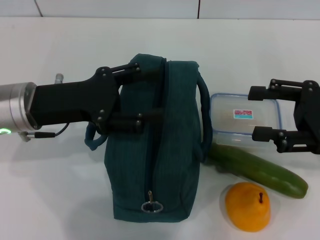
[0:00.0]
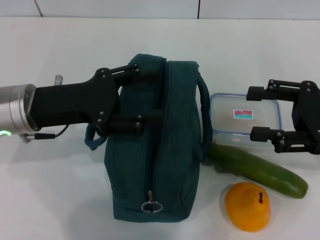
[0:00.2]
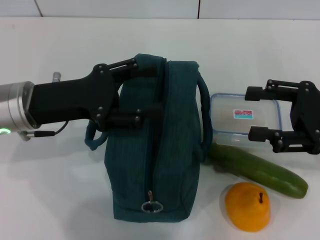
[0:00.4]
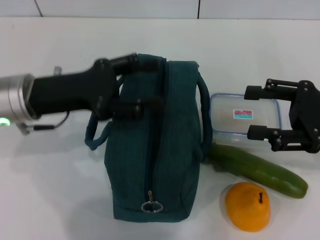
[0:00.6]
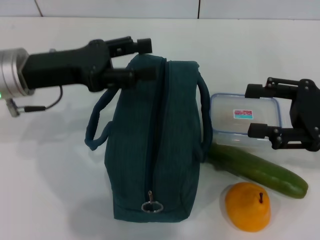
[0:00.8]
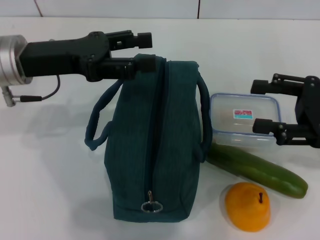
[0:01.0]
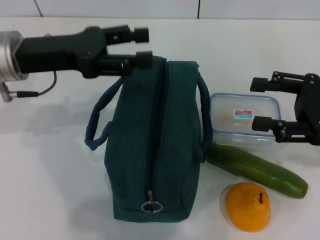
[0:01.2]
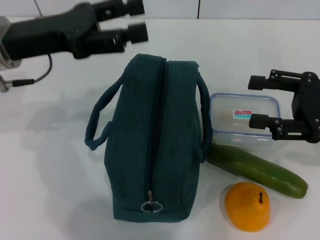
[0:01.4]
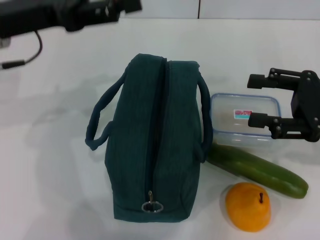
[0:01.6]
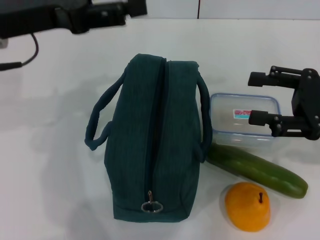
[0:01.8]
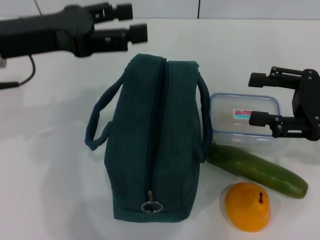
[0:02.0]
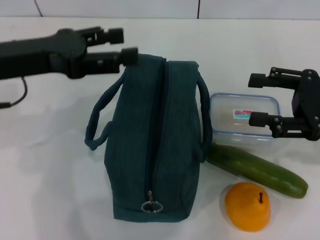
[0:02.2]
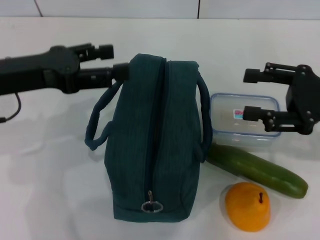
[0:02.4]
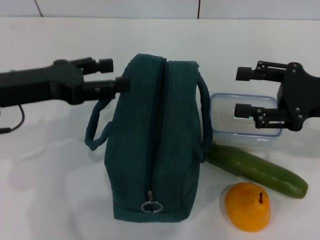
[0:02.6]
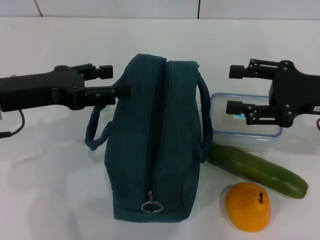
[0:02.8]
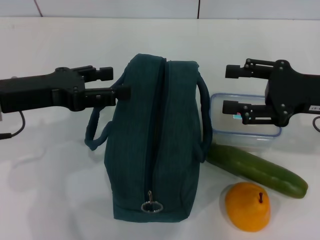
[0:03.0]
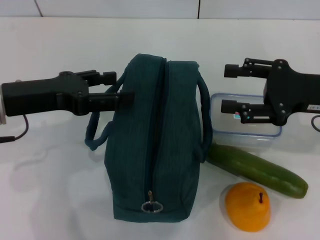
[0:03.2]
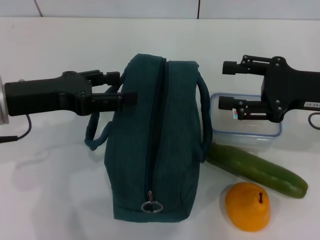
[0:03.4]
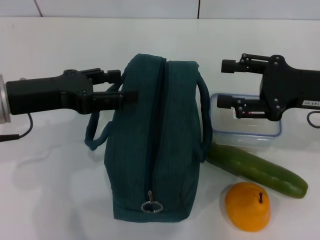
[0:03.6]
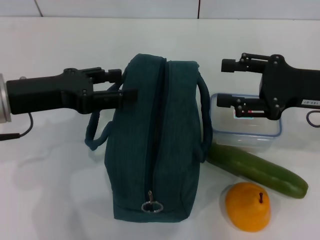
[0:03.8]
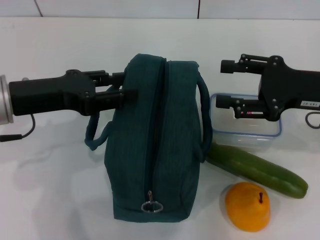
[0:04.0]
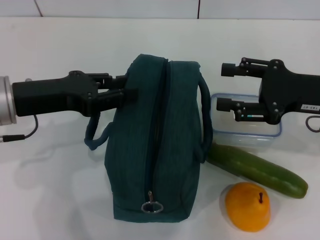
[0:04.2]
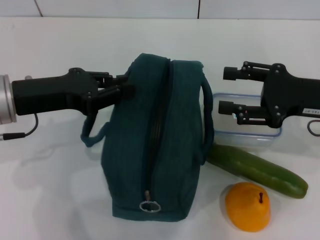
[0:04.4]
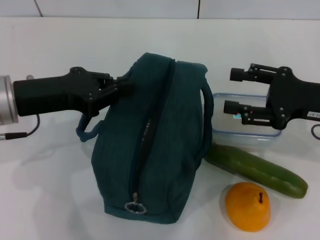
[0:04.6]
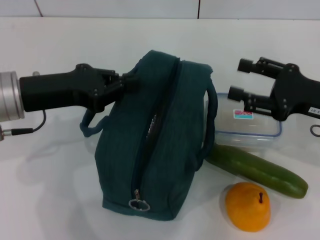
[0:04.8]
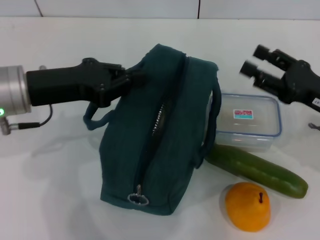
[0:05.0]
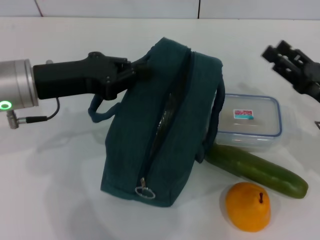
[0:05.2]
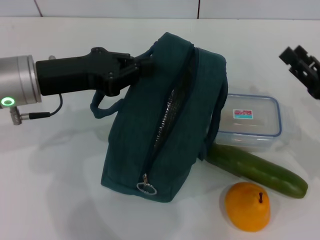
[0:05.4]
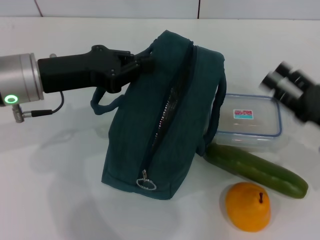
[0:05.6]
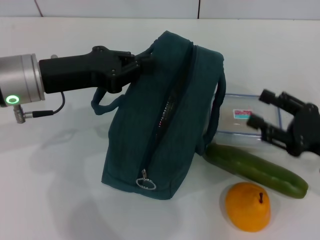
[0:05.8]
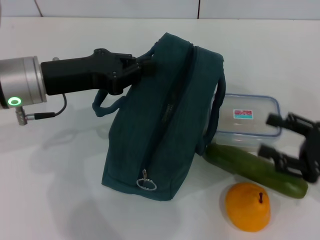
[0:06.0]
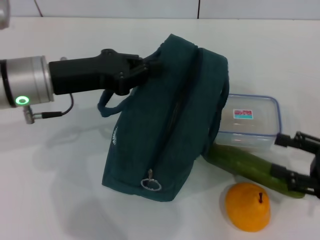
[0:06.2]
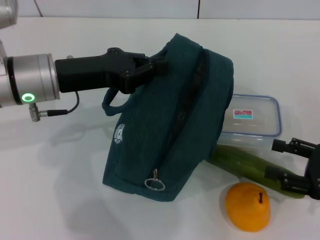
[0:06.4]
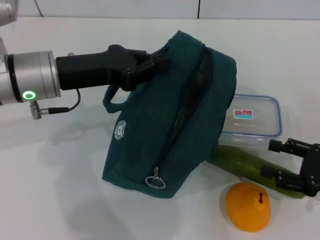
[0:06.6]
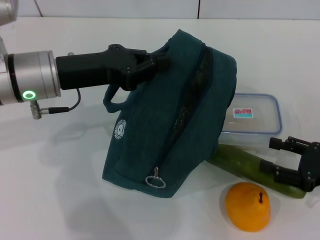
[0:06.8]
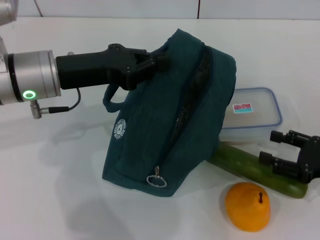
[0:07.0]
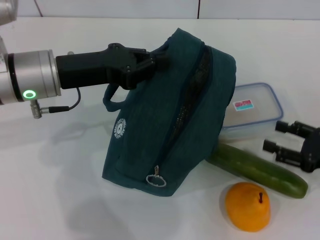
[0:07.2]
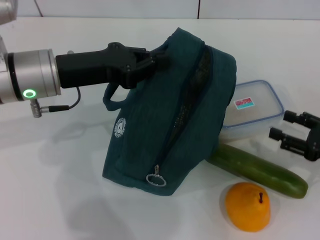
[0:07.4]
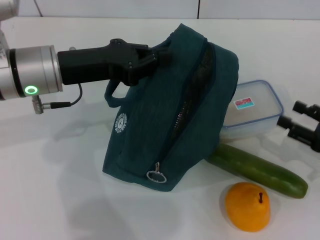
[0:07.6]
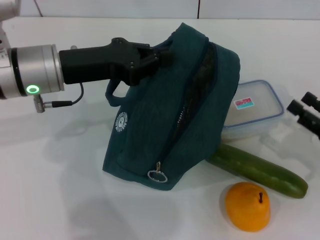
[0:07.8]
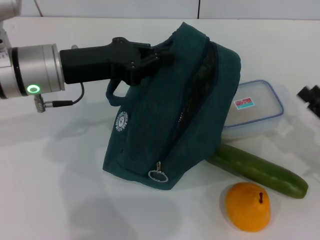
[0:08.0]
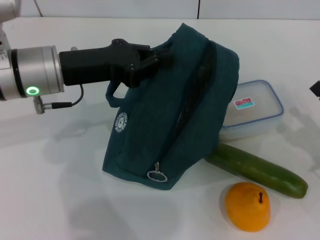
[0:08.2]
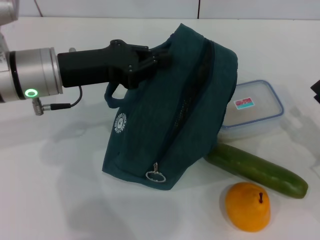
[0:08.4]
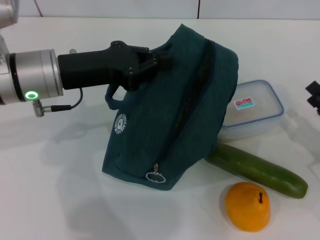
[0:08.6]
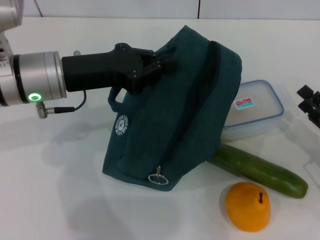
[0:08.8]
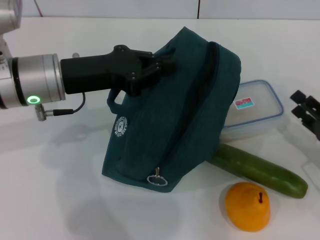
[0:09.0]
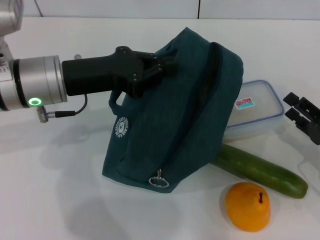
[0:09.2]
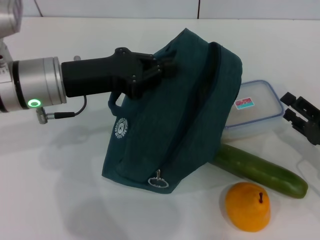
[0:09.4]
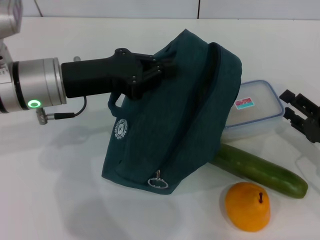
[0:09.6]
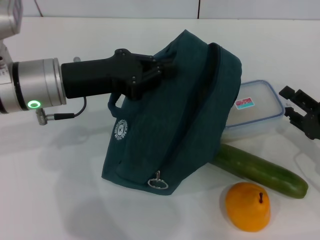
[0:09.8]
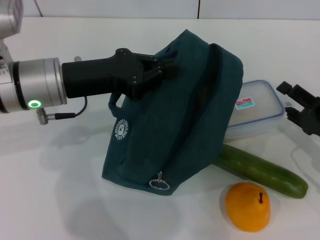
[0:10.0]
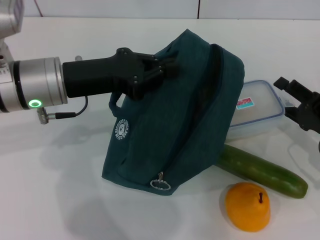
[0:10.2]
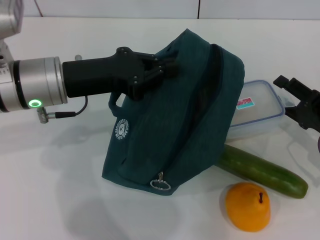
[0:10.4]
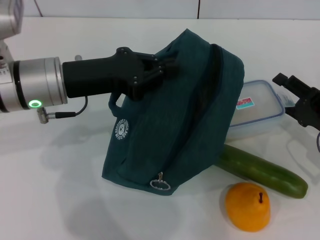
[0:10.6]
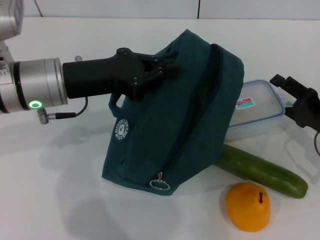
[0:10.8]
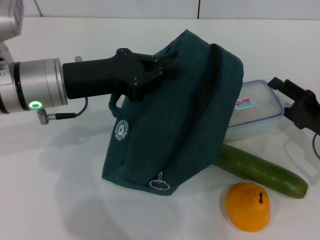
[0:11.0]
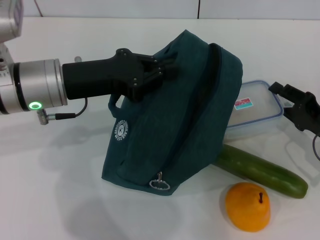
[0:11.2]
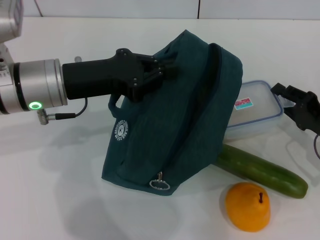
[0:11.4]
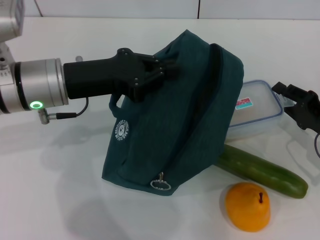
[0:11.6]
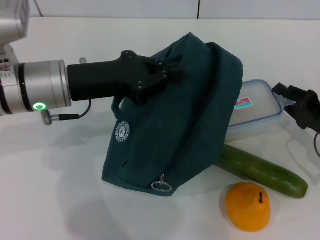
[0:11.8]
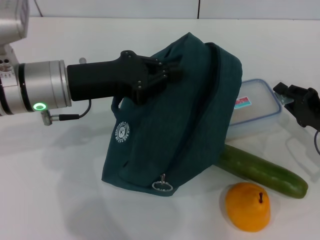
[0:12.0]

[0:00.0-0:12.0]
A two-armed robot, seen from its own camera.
Step, 0:00.0 to 0:08.6: Hold the lunch bag with your left hand.
0:00.0 to 0:01.6: The left gripper goes approximately 10 cm upward.
0:01.6 to 0:03.0: The left gripper moves backward, roughly 5 cm.
0:03.0 to 0:04.4: The left gripper closes its fingers.
0:04.4 to 0:06.0: The right gripper moves backward, downward and to the right, some 10 cm.
0:09.0 to 0:10.4: There are only small adjustments of the grippers.
0:10.4 to 0:12.0: The right gripper closes up.

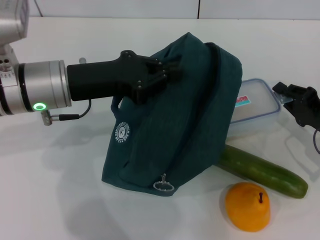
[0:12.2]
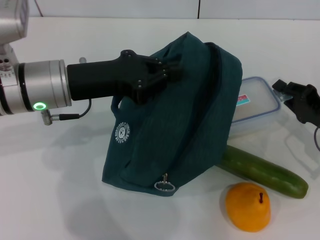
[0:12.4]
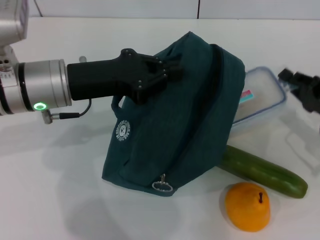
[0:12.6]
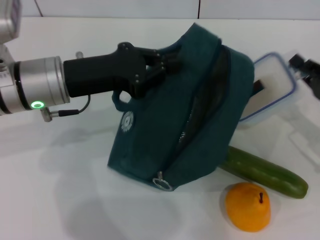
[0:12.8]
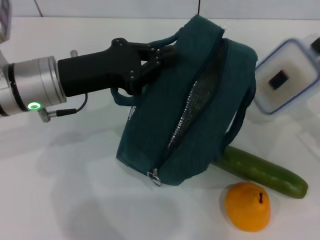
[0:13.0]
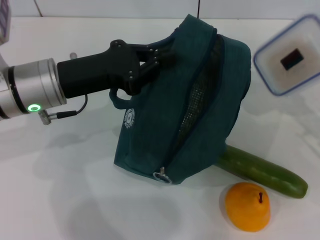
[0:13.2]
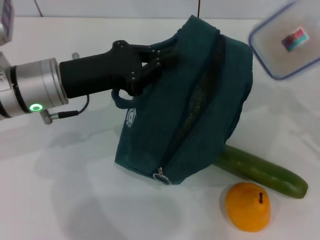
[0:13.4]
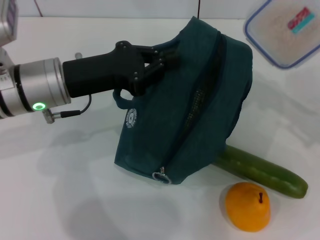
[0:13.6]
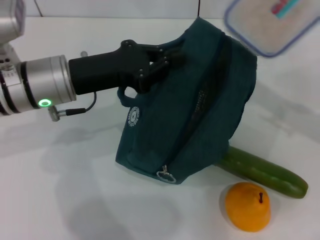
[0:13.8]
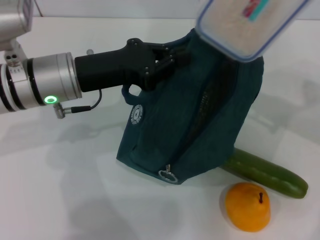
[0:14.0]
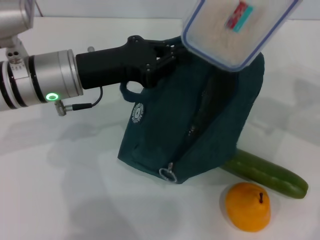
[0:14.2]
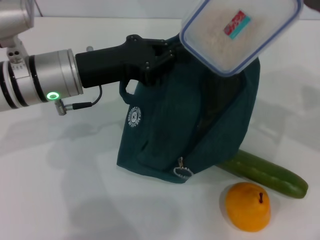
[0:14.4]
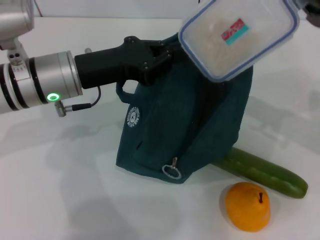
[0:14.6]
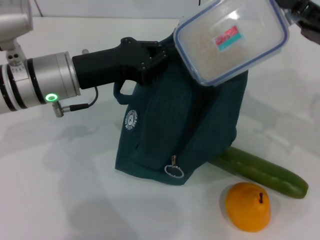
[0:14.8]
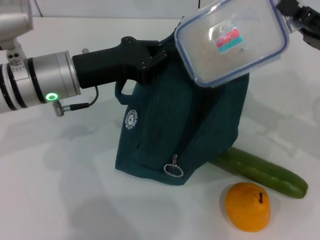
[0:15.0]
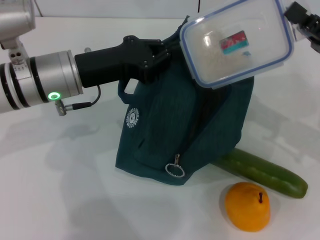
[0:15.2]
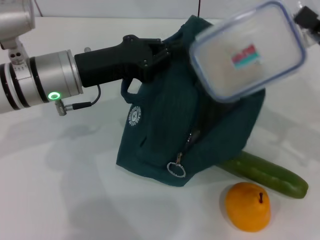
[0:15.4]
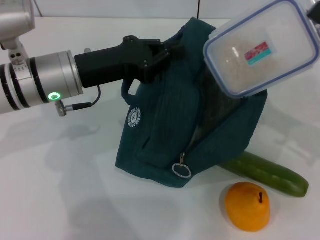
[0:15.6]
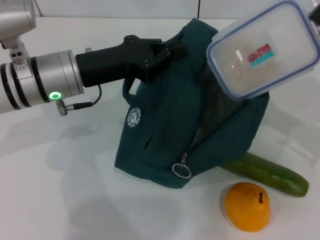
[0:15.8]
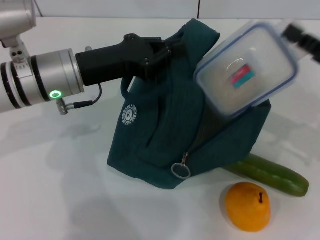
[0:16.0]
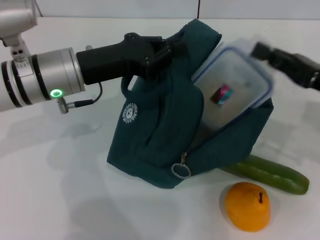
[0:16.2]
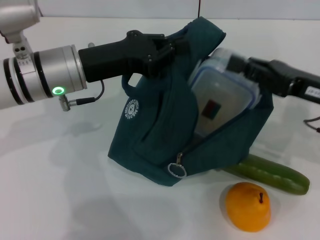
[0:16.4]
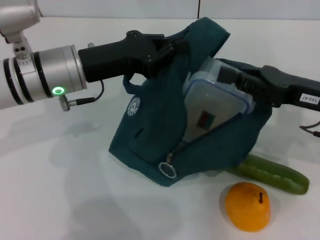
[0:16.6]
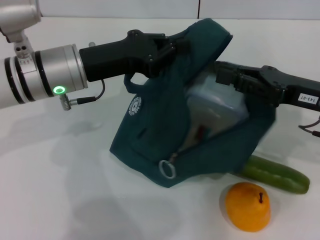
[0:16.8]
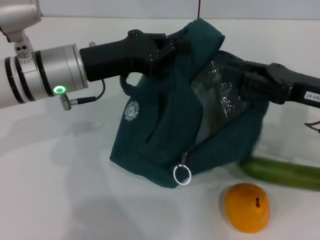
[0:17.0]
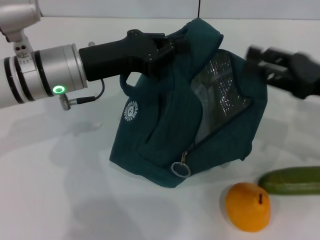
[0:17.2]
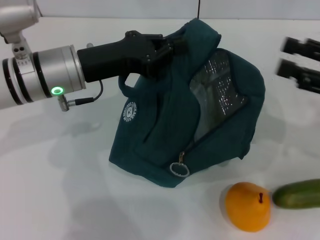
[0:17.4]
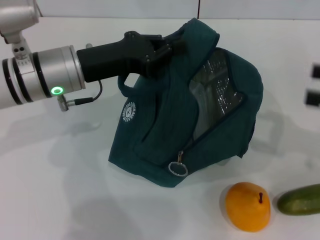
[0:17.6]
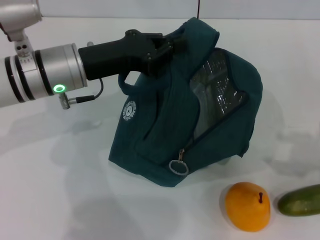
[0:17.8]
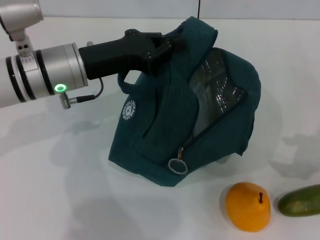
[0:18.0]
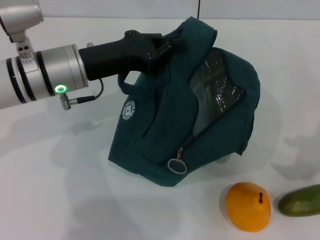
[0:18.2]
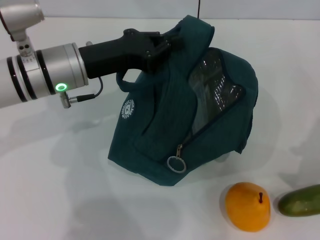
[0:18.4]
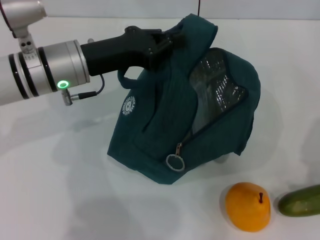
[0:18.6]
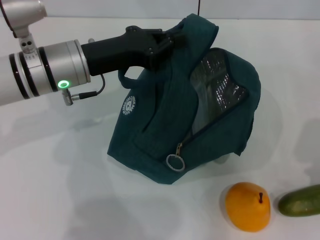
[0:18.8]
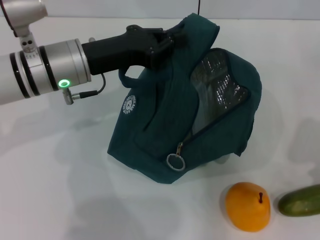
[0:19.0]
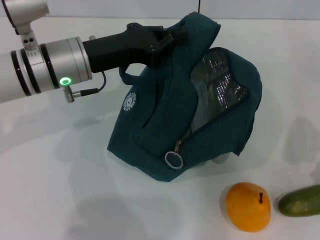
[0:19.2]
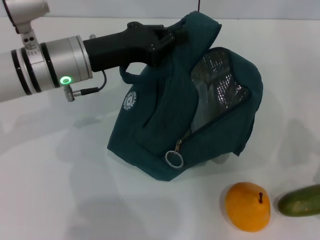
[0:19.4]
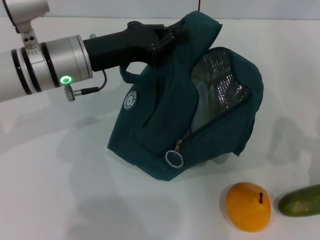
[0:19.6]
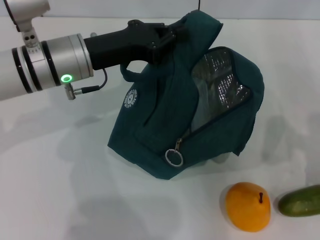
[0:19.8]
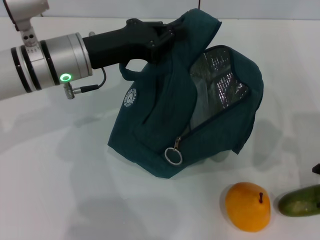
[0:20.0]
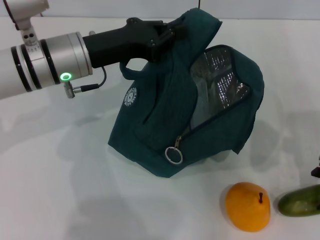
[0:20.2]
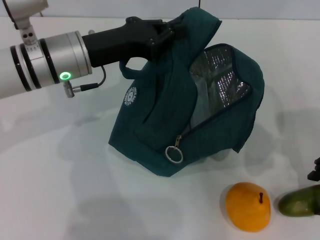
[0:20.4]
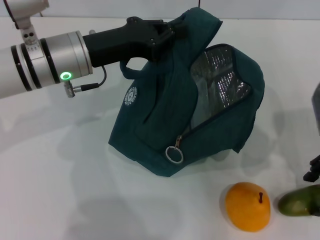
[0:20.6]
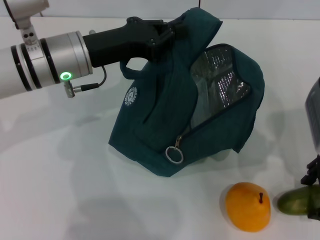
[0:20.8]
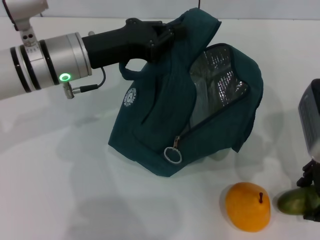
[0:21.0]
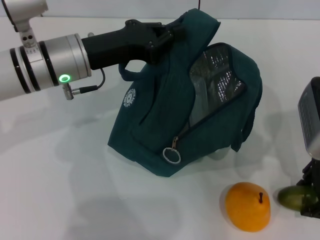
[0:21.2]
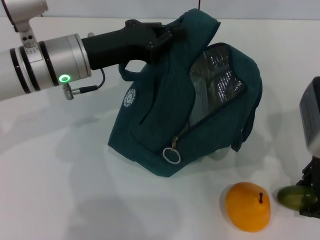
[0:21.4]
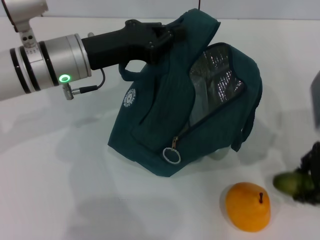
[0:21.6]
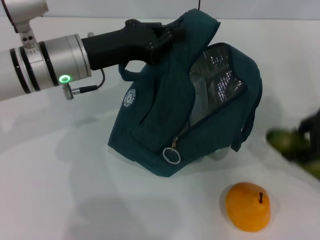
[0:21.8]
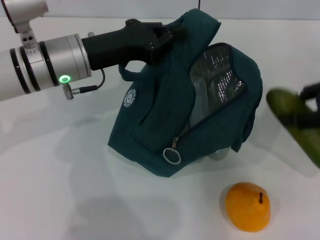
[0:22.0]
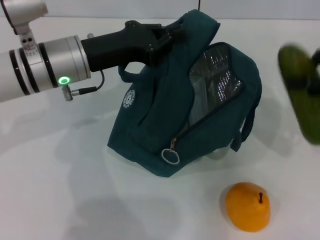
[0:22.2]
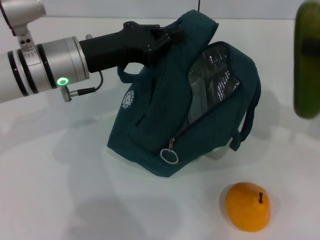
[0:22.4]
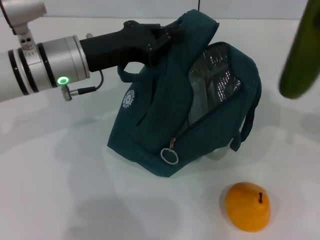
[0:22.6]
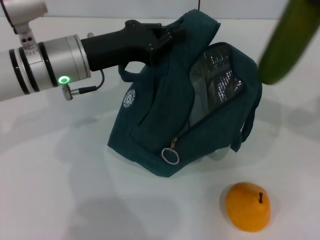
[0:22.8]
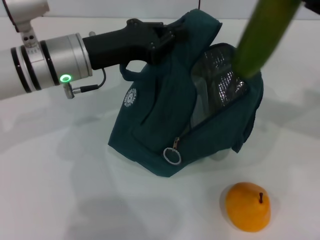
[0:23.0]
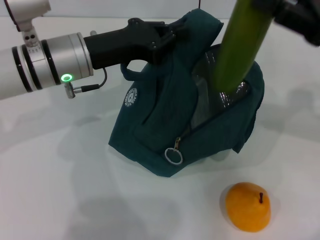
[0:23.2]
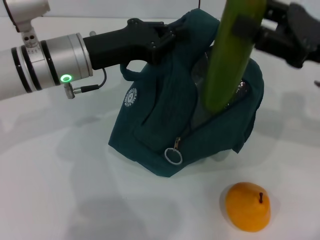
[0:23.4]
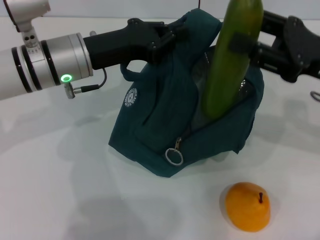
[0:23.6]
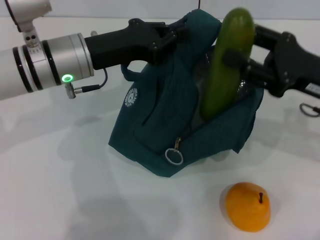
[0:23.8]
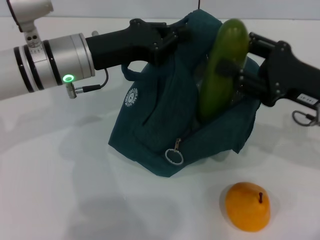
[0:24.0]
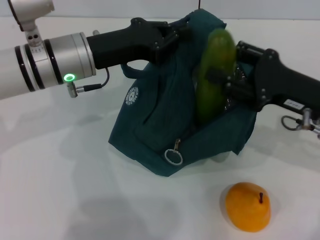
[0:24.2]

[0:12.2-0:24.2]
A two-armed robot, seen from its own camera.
Step, 0:12.4 to 0:17.0: Place the lunch box into the lunch bag with your right hand.
Step, 0:17.2 to 0:21.0: Pick up the cucumber with your right hand.
0:12.2 to 0:13.8: The right gripper goes approximately 15 cm upward.
0:13.8 to 0:15.2: The right gripper shifts by roughly 5 cm.
0:16.6 to 0:18.2: The right gripper moves to the right, upward and backward, approximately 15 cm, and opens its fingers.
0:18.2 to 0:19.8: The right gripper is displaced to the left by about 5 cm.
0:19.8 to 0:21.2: The right gripper travels to the left by roughly 5 cm.
0:21.2 to 0:22.6: The right gripper goes some 10 cm to the right and upward.
0:22.6 to 0:24.2: The right gripper travels downward and to the left by roughly 15 cm.
